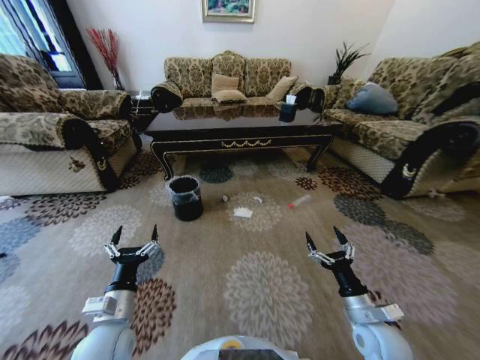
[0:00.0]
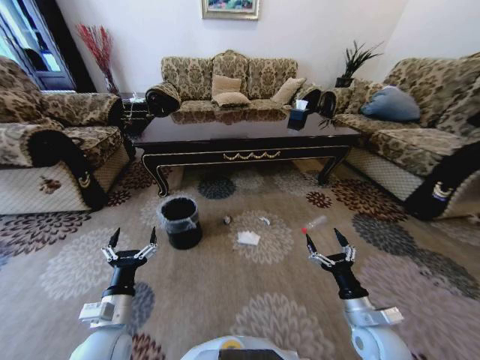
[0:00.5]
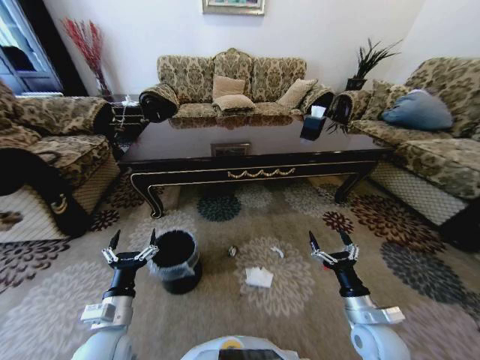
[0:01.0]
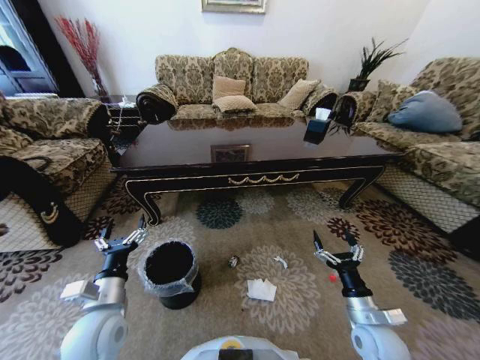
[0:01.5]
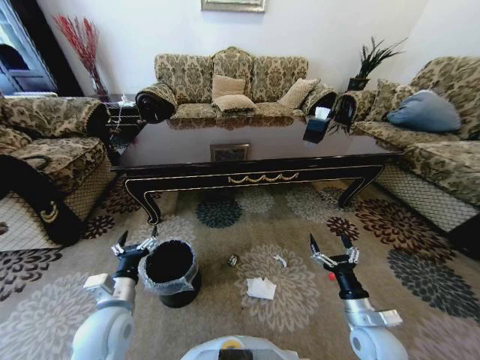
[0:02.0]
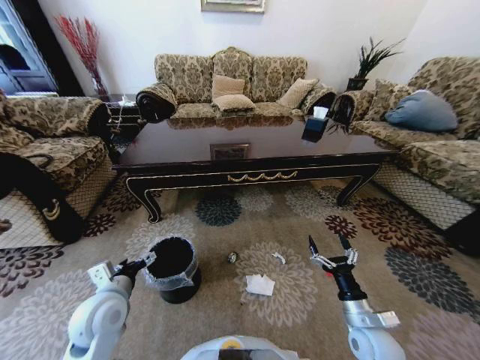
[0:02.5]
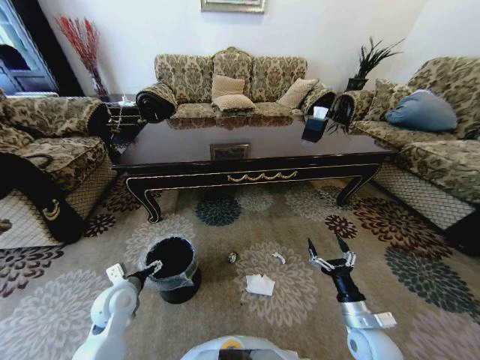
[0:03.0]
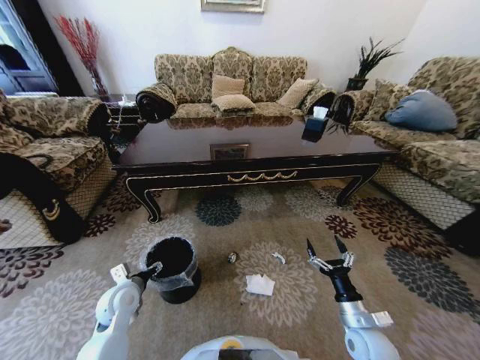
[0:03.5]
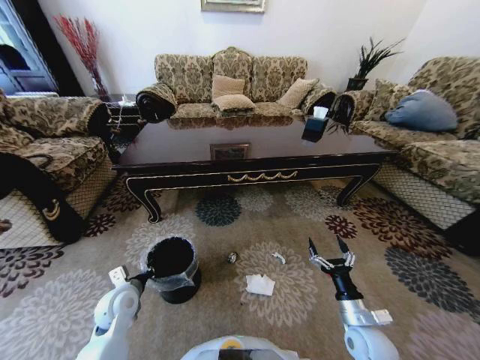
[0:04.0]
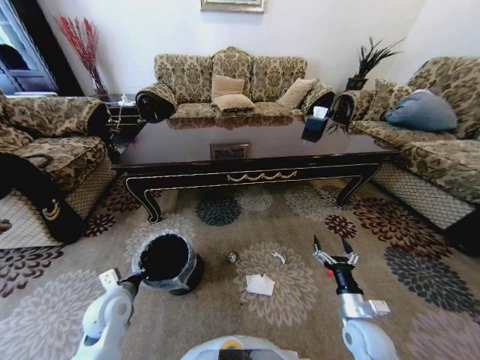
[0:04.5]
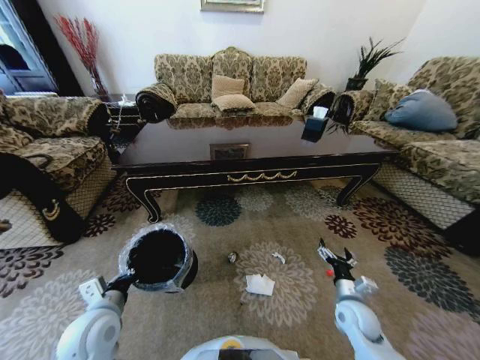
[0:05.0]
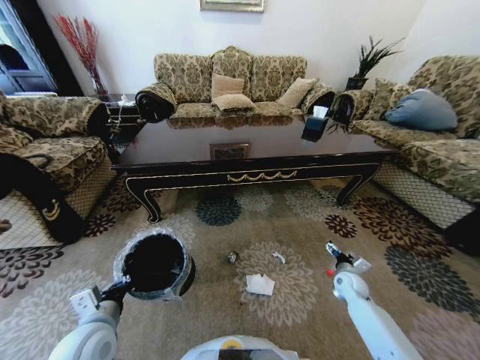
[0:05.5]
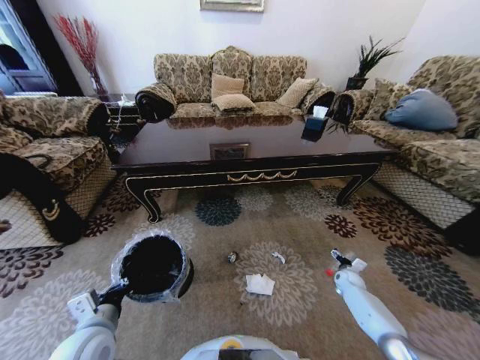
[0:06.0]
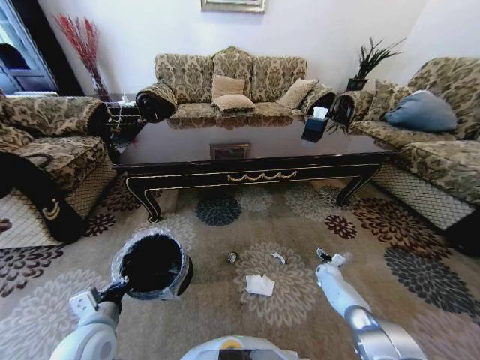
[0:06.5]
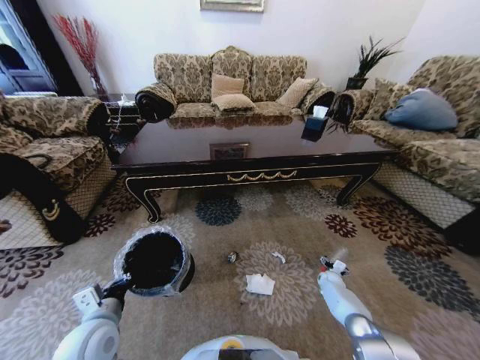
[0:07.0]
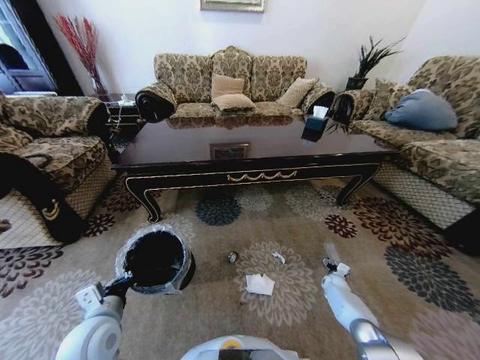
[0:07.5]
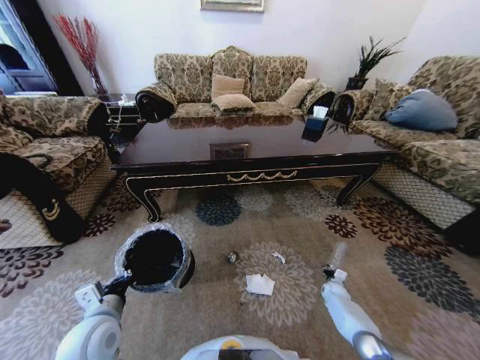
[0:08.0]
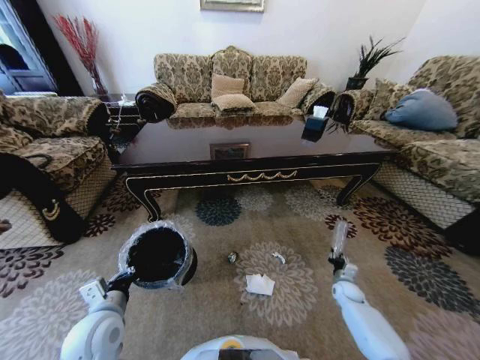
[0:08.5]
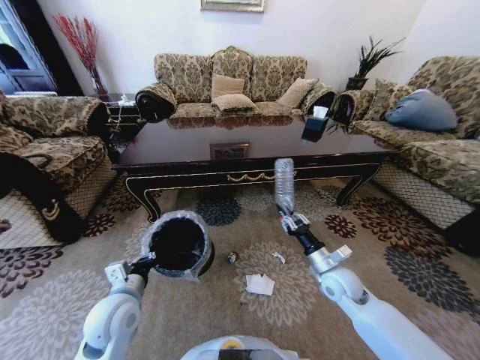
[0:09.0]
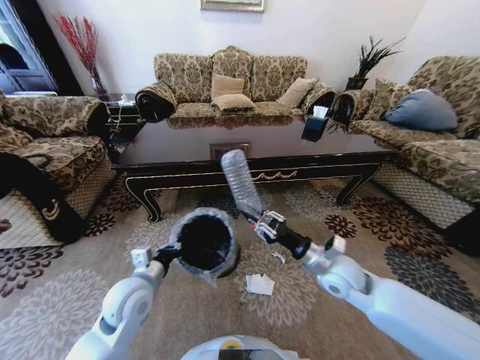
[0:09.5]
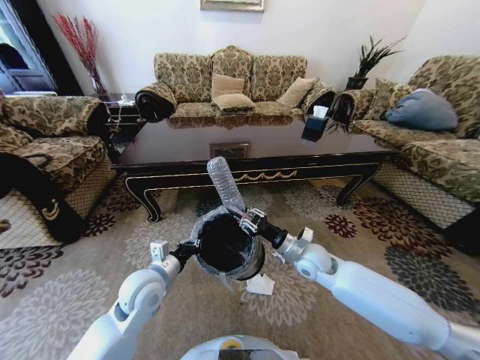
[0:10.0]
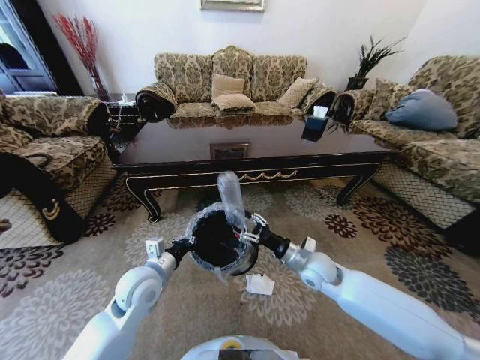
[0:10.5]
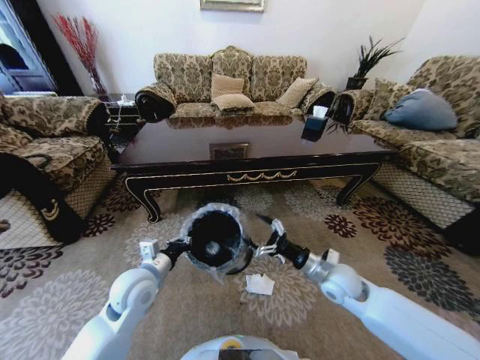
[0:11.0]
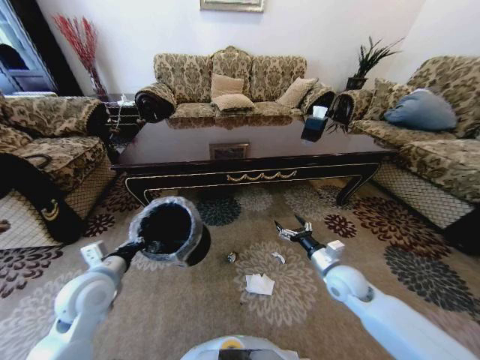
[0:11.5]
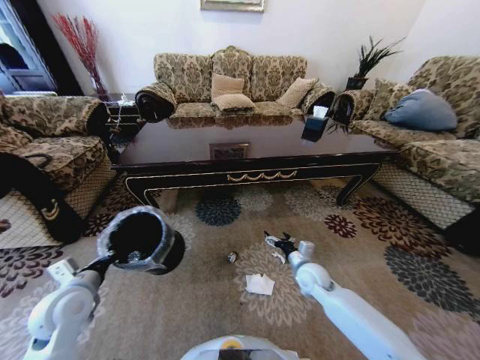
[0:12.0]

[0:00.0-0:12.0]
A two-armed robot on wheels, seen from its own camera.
Task of the whole recording: Move to the front of the table and pick up the trash from the floor, then place it into the trash bin.
0:02.0 to 0:04.0: The left gripper moves downward and forward, about 10 cm, and closes.
0:04.0 to 0:06.0: The right gripper shifts some 30 cm forward, to the right and downward. Meanwhile the left gripper goes some 15 cm backward and upward.
0:06.0 to 0:08.0: The right gripper moves downward, approximately 5 cm, and closes up.
0:08.0 to 0:10.0: The right gripper travels upward and to the left by roughly 40 cm; the left gripper shifts about 10 cm forward and to the right.
0:10.0 to 0:12.0: The right gripper is displaced downward by roughly 10 cm, and opens, while the left gripper heads to the left, covering some 15 cm.

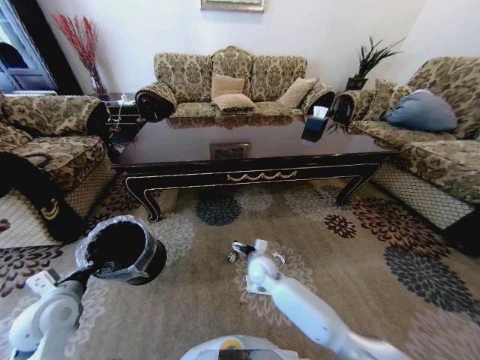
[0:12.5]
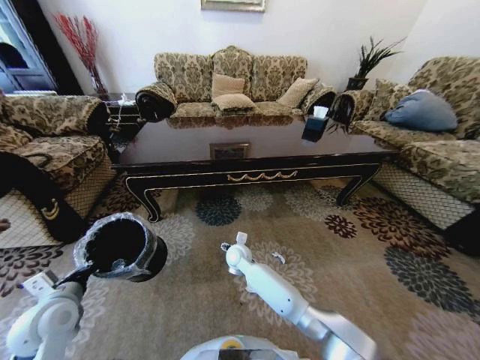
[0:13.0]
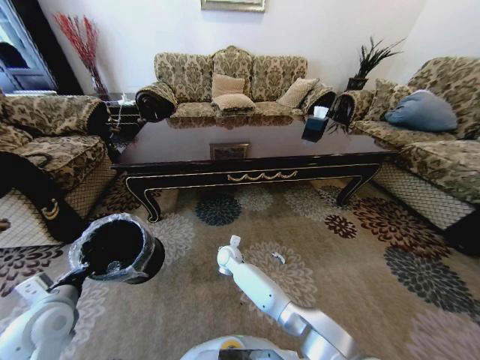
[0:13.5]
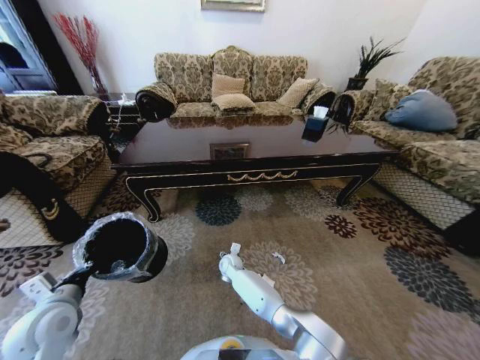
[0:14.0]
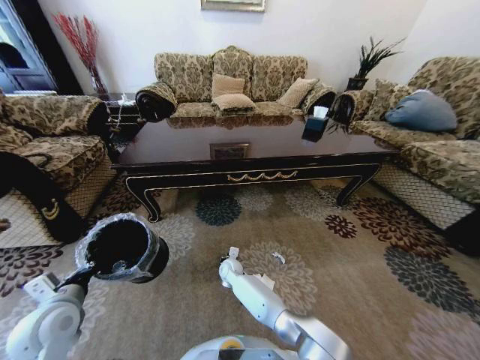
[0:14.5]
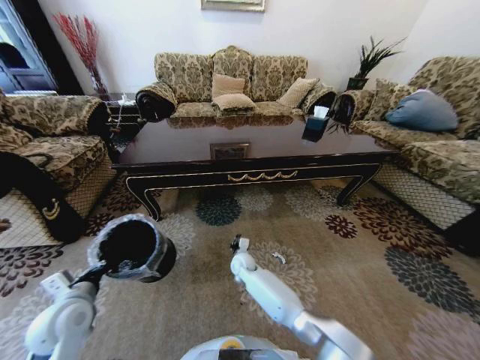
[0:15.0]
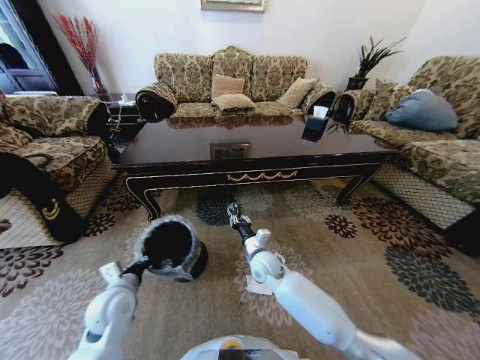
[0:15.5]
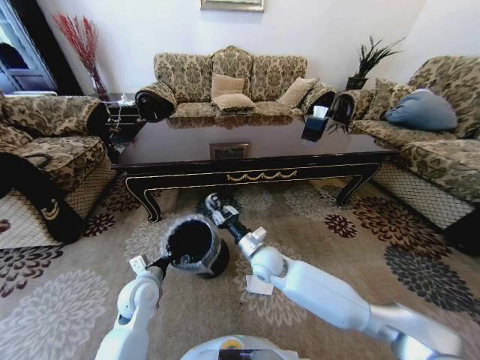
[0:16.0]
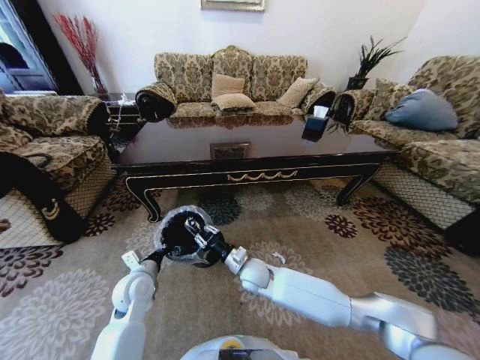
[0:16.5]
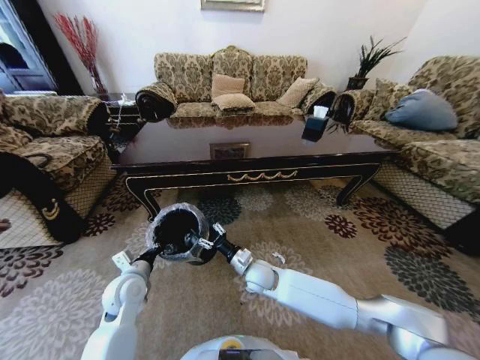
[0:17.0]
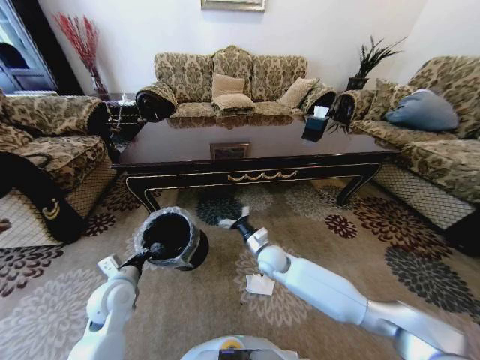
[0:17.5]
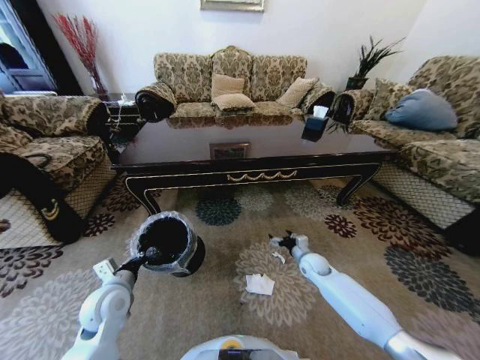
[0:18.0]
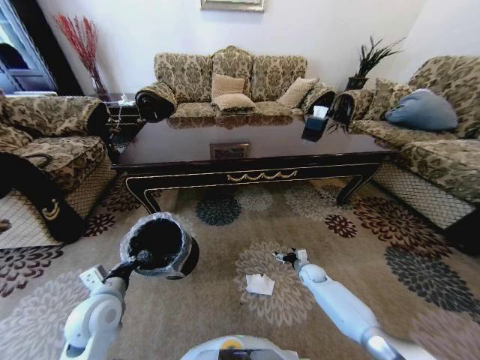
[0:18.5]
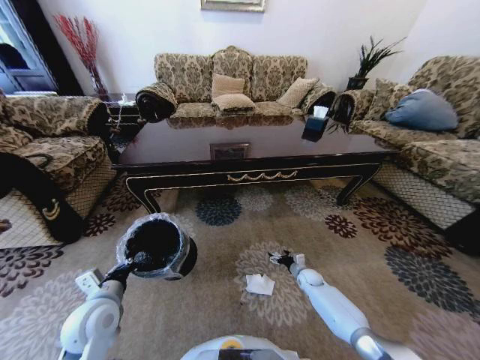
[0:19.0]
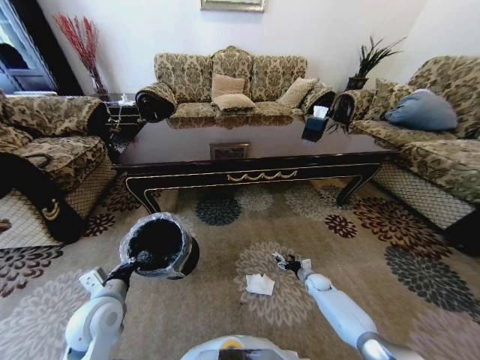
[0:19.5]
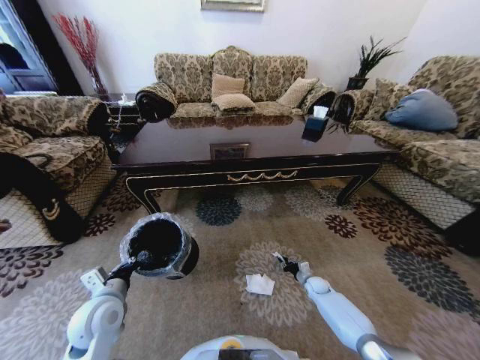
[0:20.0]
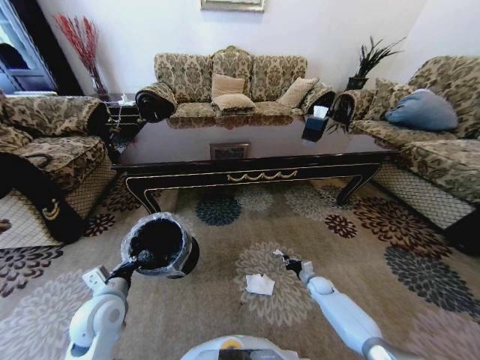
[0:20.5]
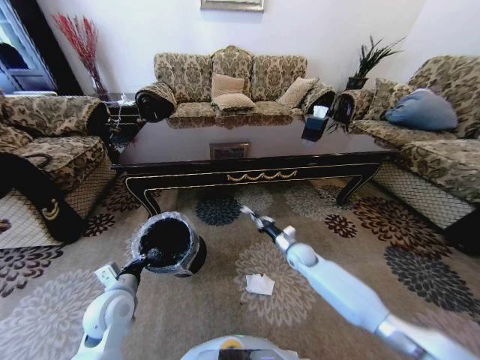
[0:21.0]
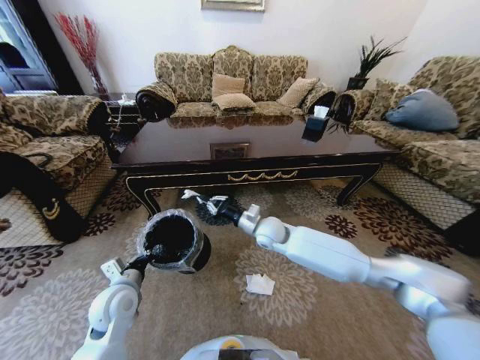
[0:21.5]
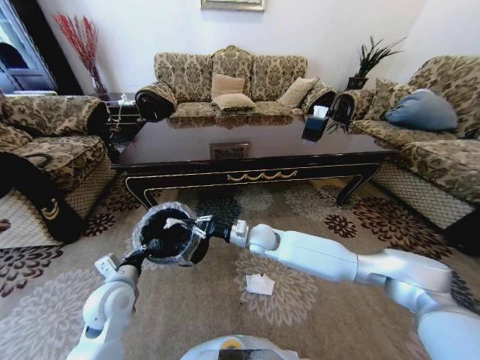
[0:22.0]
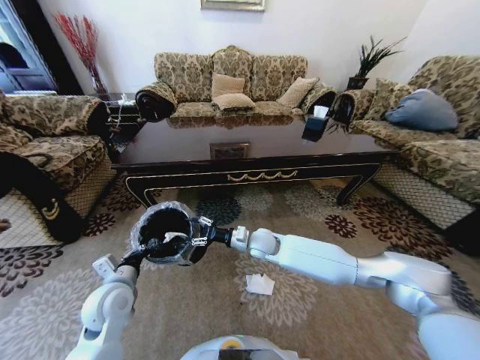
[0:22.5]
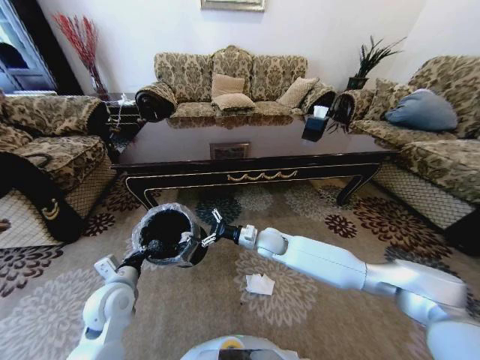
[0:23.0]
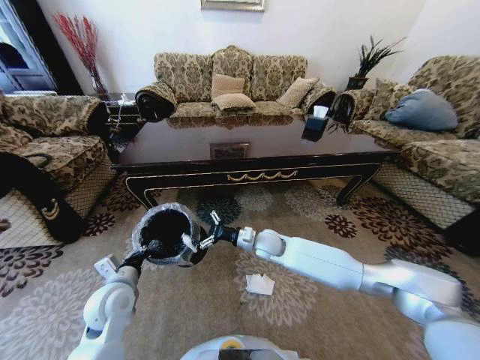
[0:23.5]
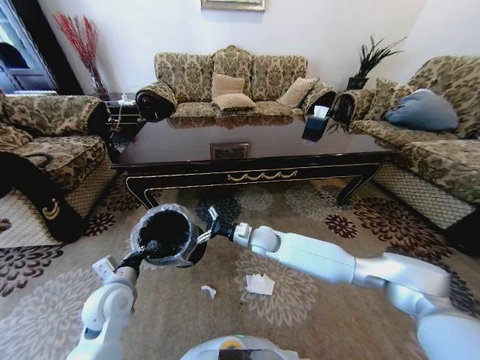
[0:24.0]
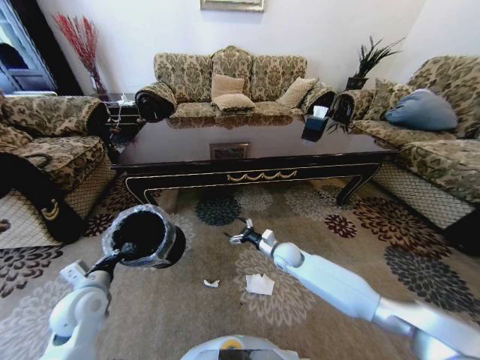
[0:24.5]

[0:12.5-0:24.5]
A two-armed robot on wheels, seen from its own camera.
Task of the whole recording: Move to the front of the table and pick up the trash from the floor, then place it into the trash bin.
0:12.5 to 0:14.5: The right gripper is displaced downward, to the left and forward by approximately 15 cm, and closes its fingers.
0:14.5 to 0:16.5: The right gripper moves upward, backward and to the right, roughly 15 cm. Meanwhile the left gripper heads to the right, forward and downward, covering about 15 cm.
0:16.5 to 0:18.5: The left gripper goes about 5 cm backward. Meanwhile the right gripper is displaced to the right and downward by approximately 30 cm, and opens.
0:18.5 to 0:20.5: The right gripper ends up about 5 cm from where it was, and closes its fingers.
0:20.5 to 0:22.5: The right gripper is displaced to the left and upward by some 40 cm, and opens its fingers.
0:22.5 to 0:24.5: The left gripper travels to the left by some 5 cm. The right gripper moves to the right and downward, some 10 cm, and opens.

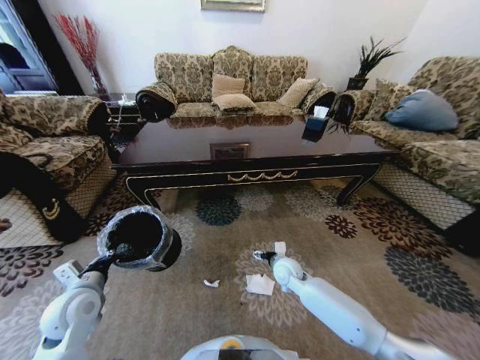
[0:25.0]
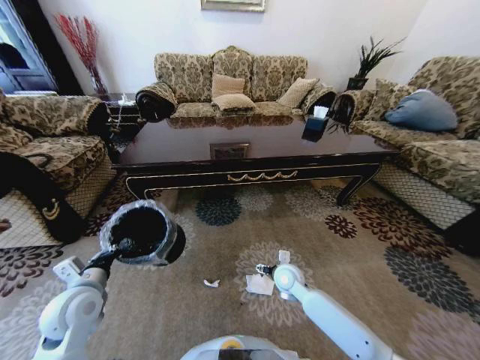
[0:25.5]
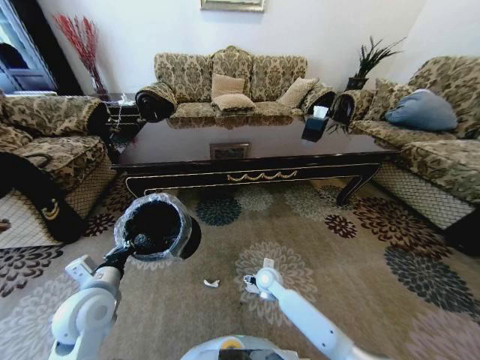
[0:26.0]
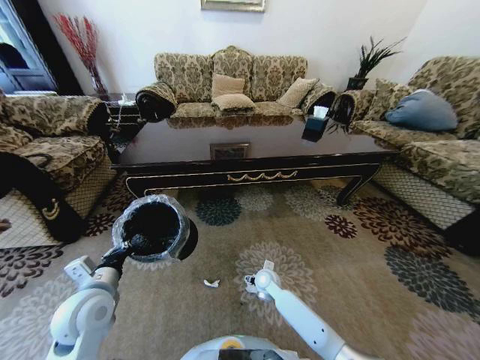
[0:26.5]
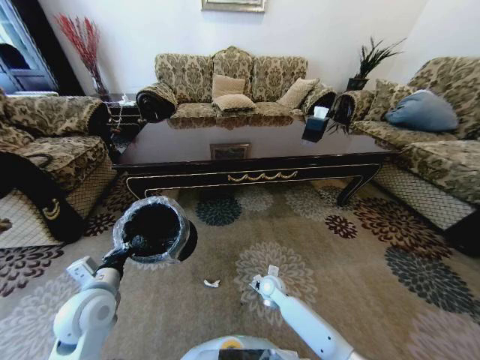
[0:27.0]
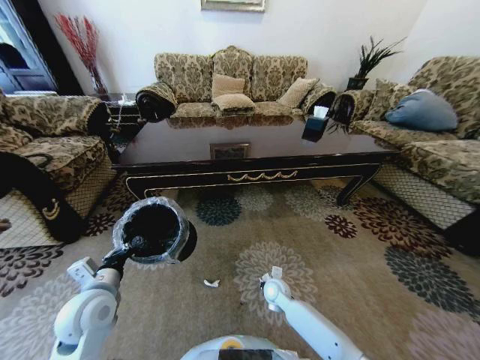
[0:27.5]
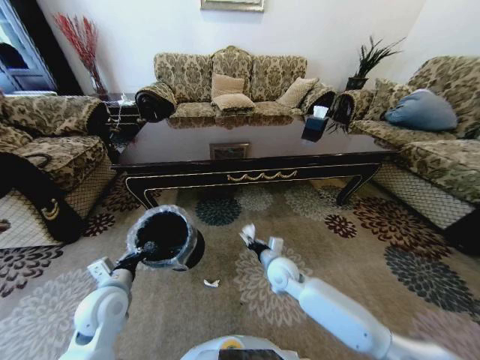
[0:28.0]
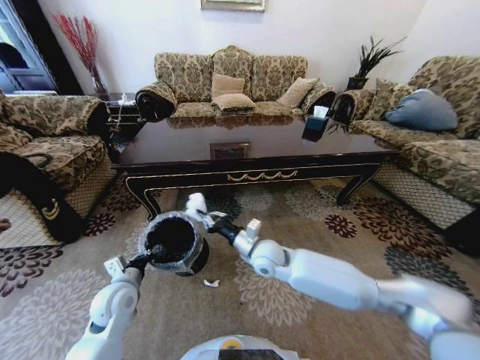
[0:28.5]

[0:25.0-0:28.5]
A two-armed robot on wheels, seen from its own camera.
Task of the whole recording: Move to the front of the table and pick up the trash from the floor, then place it into the trash bin.
0:25.0 to 0:27.0: The left gripper travels to the right by approximately 5 cm. Meanwhile the right gripper heads downward, covering approximately 10 cm, and closes.
0:27.0 to 0:28.5: The left gripper is displaced downward by about 5 cm. Meanwhile the right gripper heads upward, covering roughly 20 cm, and closes.
